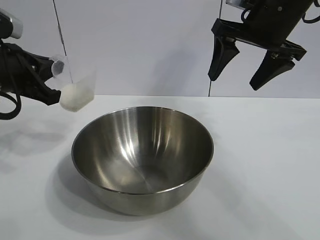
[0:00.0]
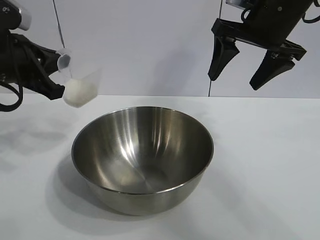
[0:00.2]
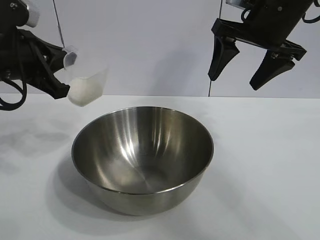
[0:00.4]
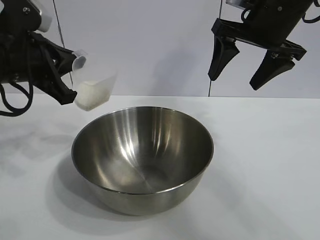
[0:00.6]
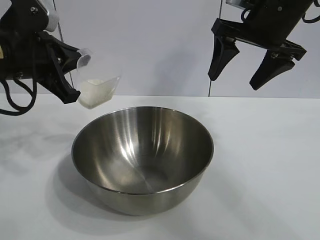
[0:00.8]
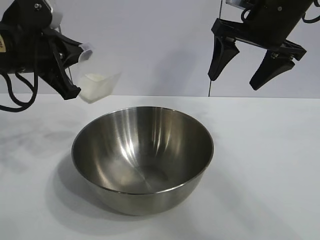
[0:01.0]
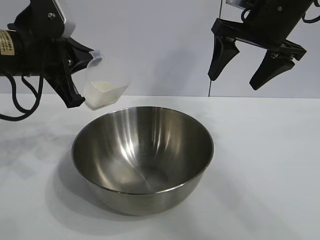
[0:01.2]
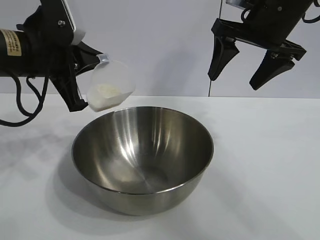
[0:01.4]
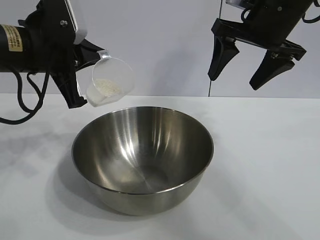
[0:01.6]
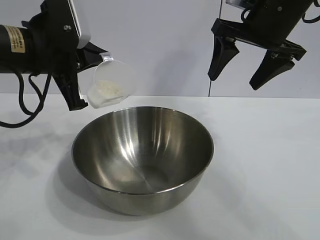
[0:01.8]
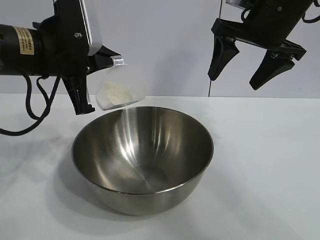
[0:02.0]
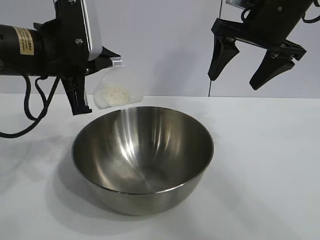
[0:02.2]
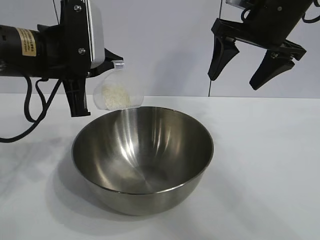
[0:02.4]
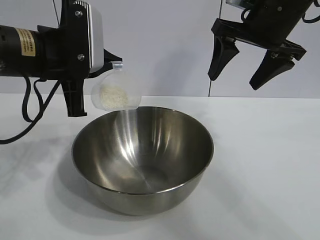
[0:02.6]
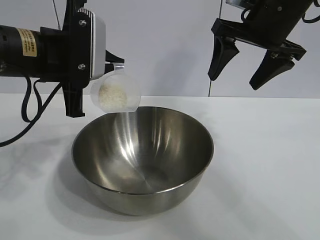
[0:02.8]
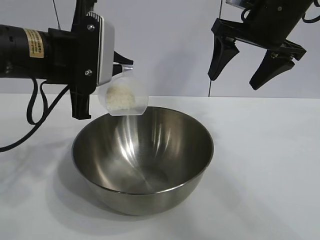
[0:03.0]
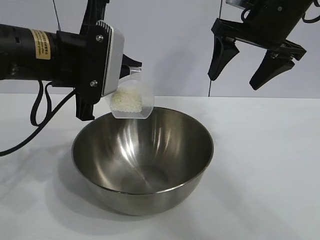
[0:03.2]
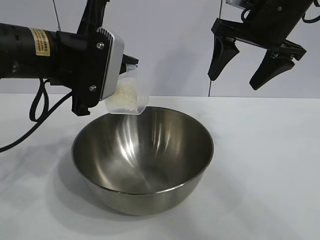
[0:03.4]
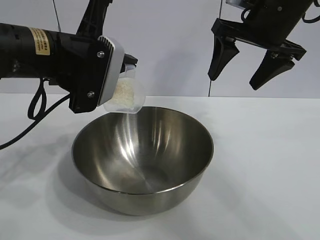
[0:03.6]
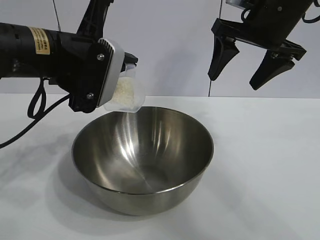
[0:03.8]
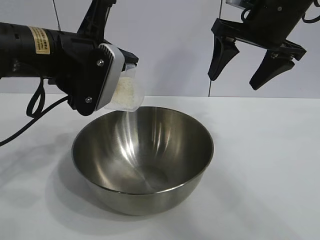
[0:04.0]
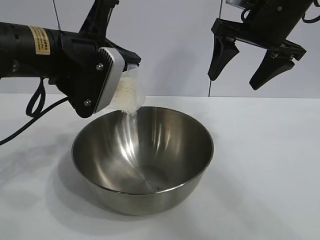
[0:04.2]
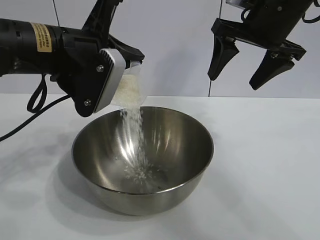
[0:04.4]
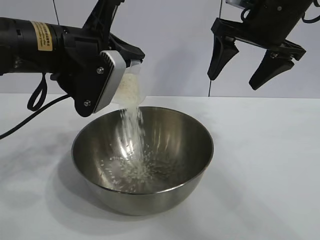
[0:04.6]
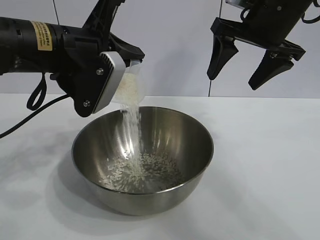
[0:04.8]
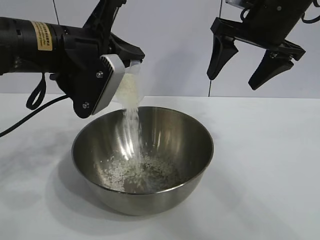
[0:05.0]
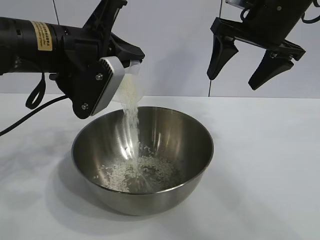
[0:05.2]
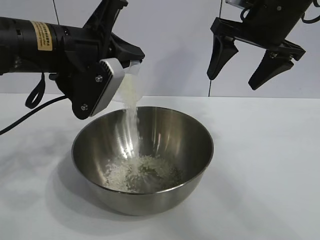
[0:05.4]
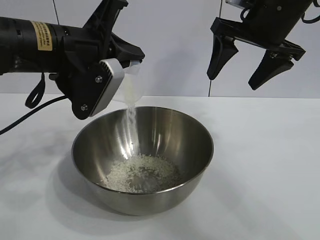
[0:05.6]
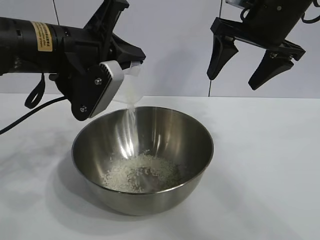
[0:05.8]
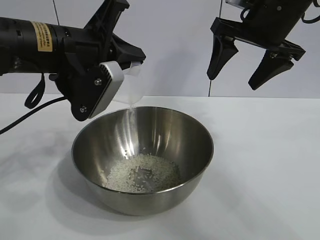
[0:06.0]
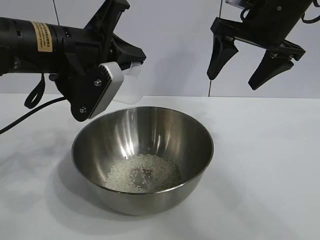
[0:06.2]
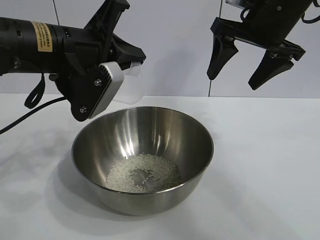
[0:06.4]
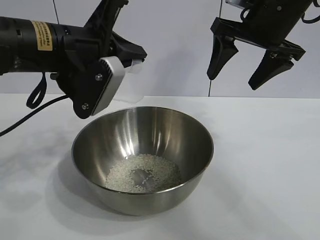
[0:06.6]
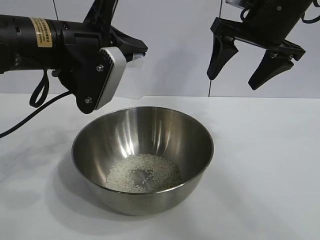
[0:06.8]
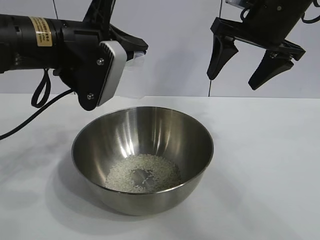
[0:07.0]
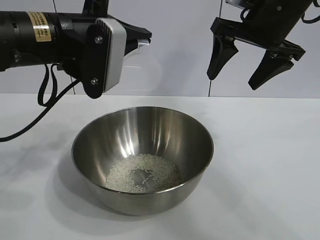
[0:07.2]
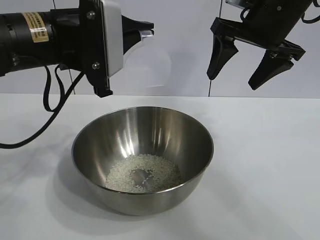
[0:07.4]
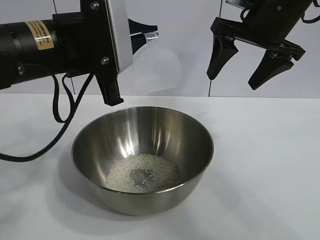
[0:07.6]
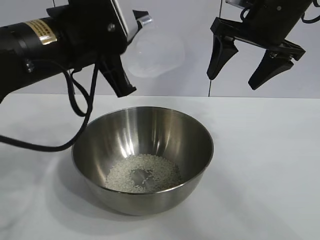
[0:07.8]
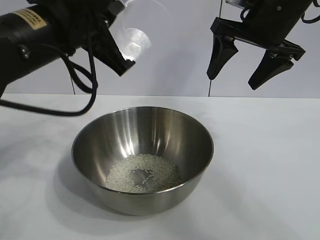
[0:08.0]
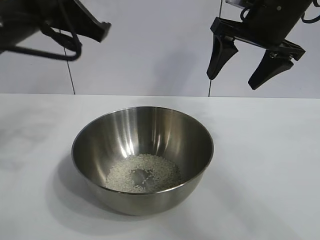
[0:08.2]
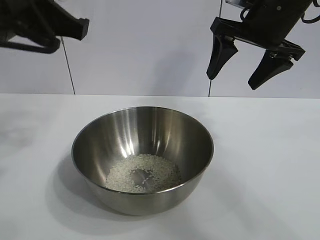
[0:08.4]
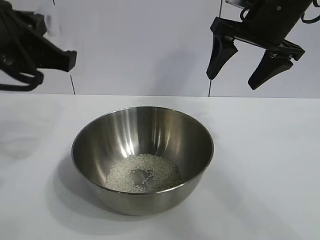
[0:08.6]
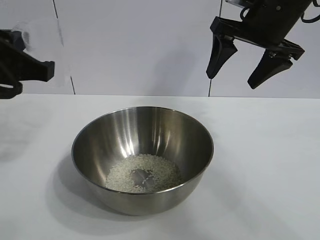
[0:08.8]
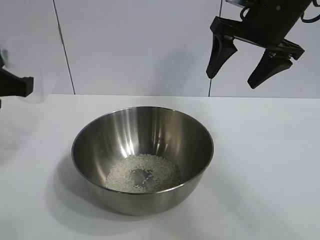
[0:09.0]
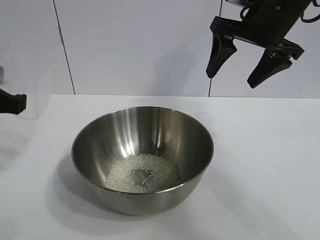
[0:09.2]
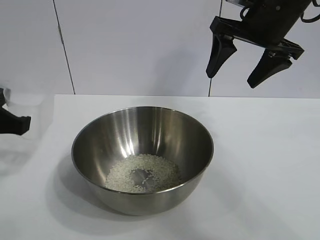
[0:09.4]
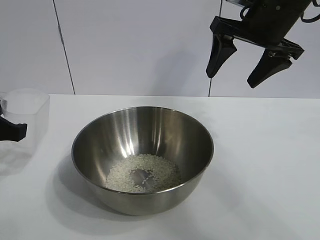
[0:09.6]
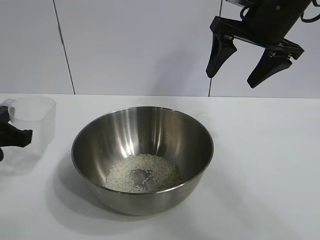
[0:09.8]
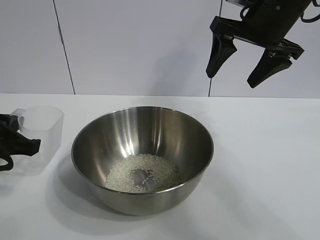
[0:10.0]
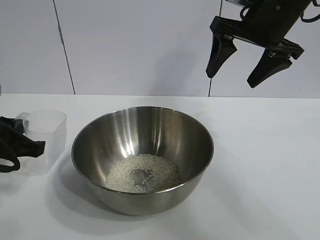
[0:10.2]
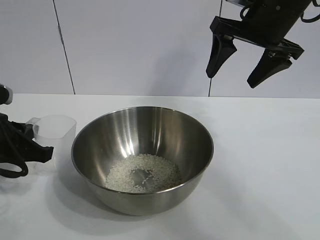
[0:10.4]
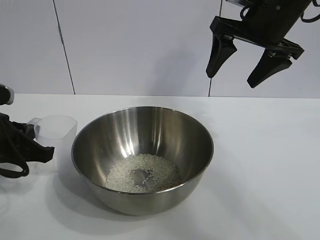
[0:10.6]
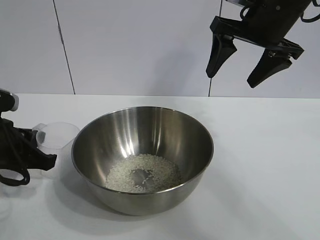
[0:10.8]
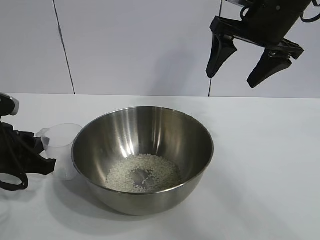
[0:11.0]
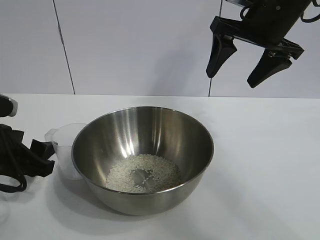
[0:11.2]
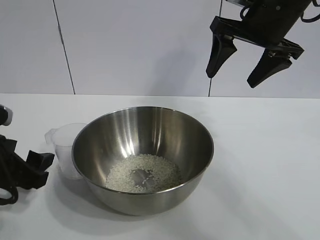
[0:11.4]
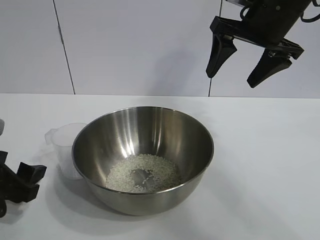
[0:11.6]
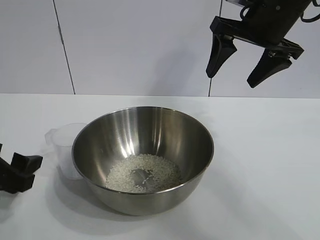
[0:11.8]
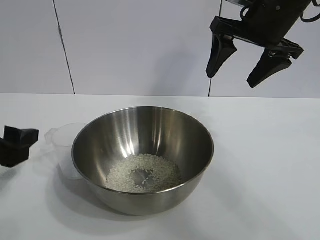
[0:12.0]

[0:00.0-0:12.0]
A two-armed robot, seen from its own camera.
Task of the whole recording: the right gripper grasp the rice container and place it in the center of the table, the left gripper grasp the rice scoop and pour the rice into the rice container.
Step, 0:00.0 to 0:06.8: Pour the rice from the cup into the bowl with the left gripper.
Step, 0:07.0 to 0:11.0: Place the cup on the table with the left gripper.
